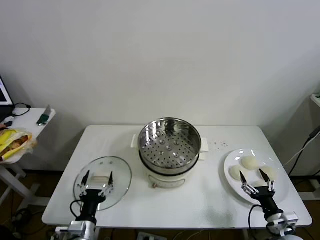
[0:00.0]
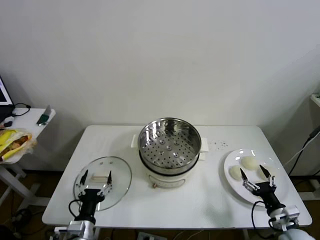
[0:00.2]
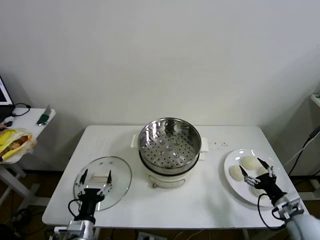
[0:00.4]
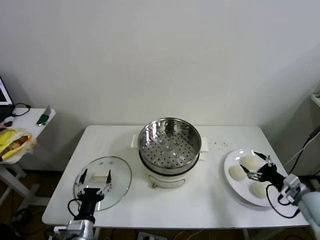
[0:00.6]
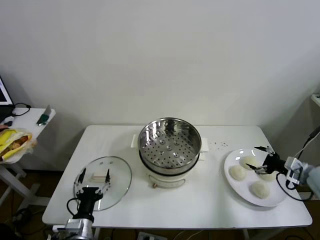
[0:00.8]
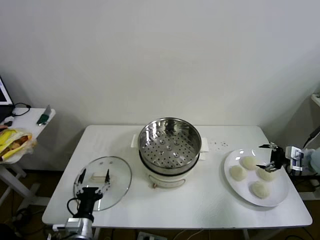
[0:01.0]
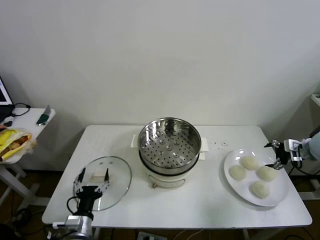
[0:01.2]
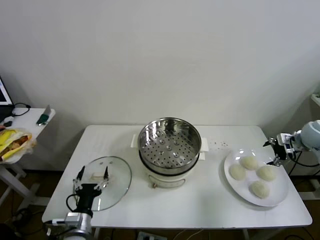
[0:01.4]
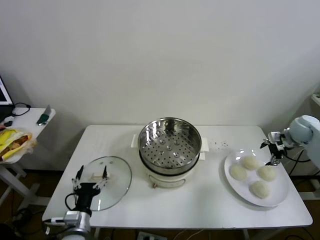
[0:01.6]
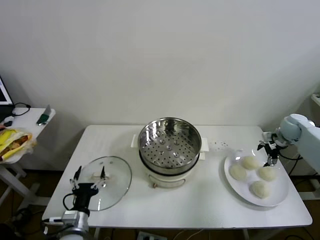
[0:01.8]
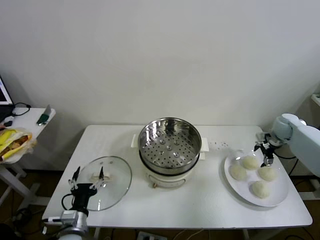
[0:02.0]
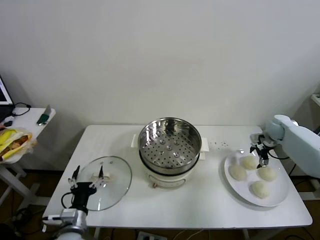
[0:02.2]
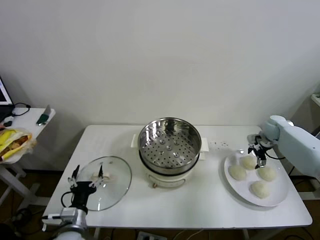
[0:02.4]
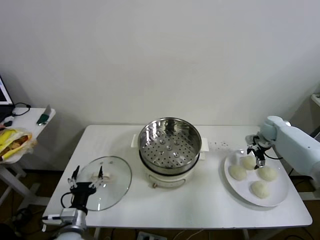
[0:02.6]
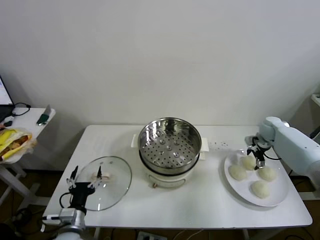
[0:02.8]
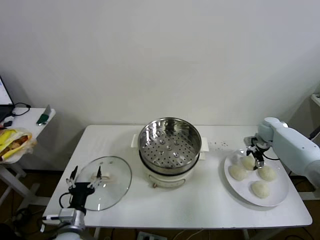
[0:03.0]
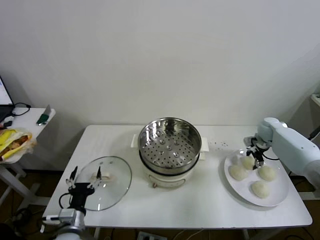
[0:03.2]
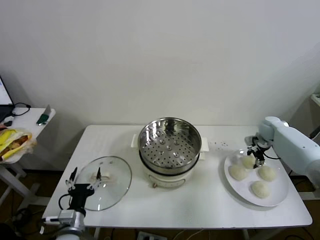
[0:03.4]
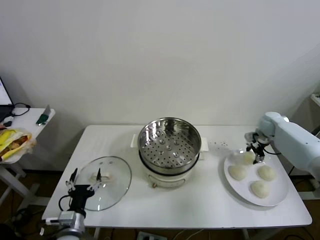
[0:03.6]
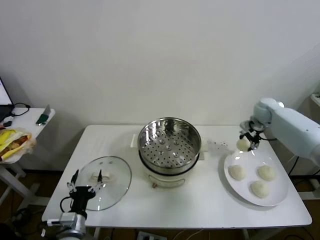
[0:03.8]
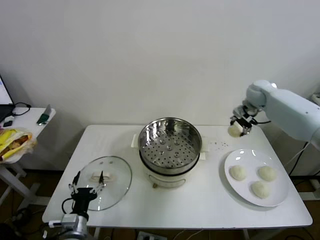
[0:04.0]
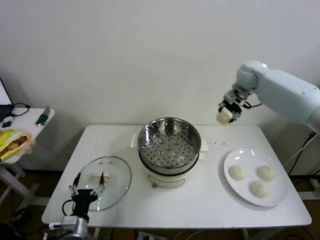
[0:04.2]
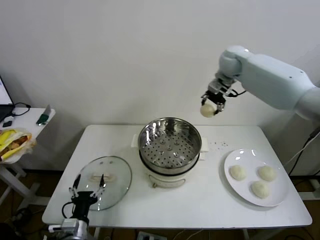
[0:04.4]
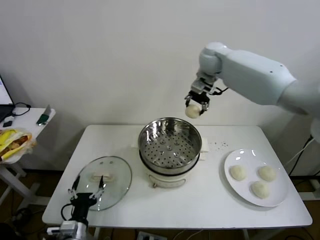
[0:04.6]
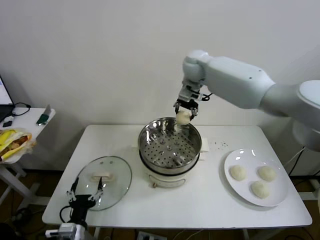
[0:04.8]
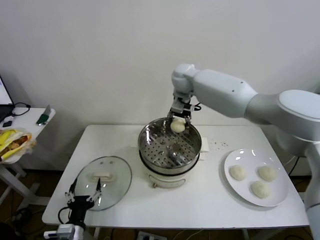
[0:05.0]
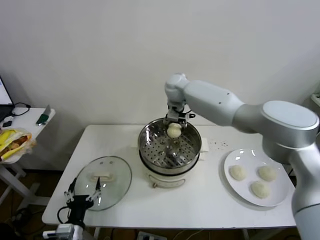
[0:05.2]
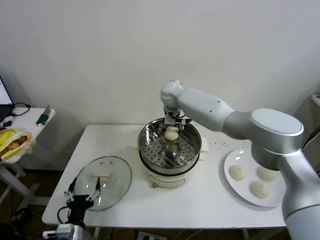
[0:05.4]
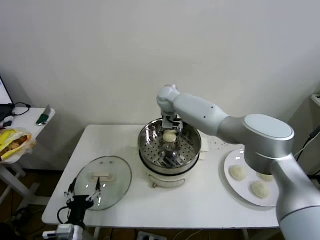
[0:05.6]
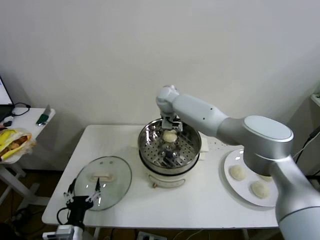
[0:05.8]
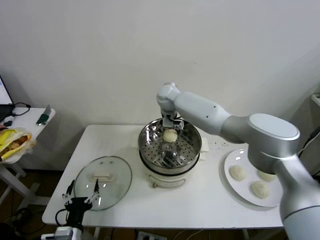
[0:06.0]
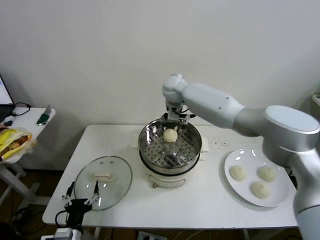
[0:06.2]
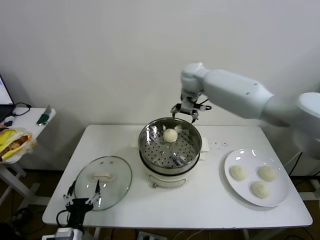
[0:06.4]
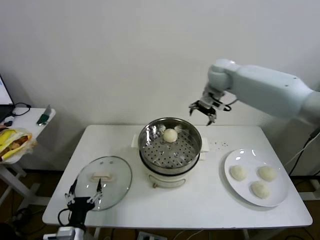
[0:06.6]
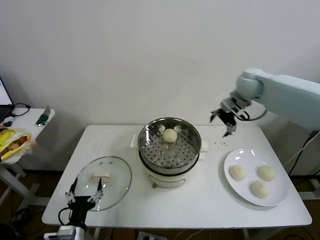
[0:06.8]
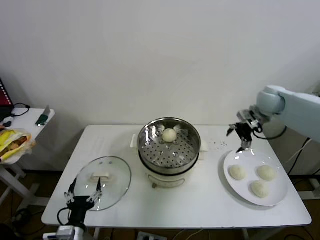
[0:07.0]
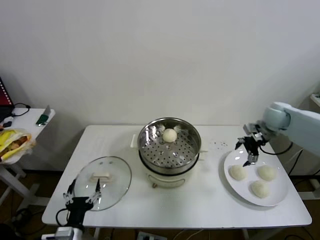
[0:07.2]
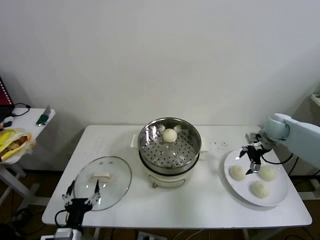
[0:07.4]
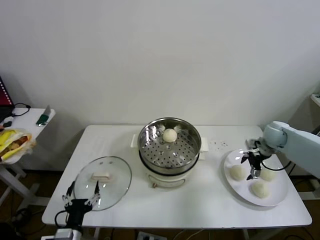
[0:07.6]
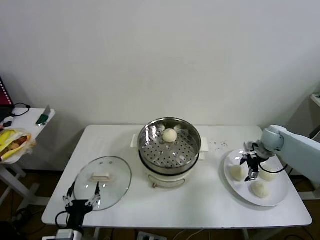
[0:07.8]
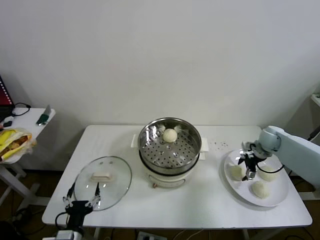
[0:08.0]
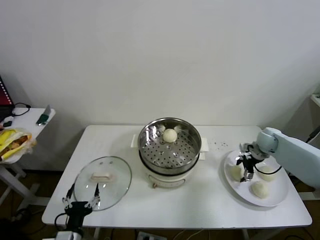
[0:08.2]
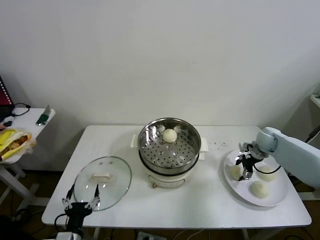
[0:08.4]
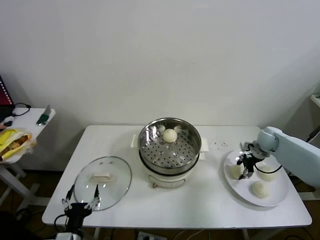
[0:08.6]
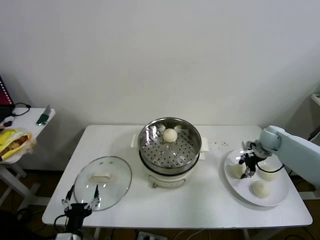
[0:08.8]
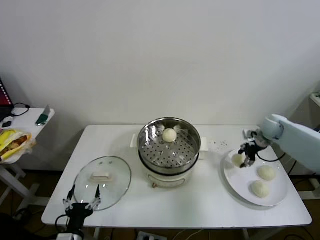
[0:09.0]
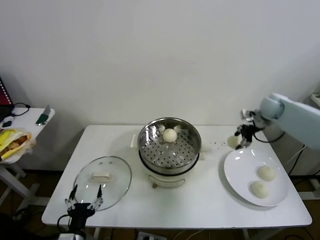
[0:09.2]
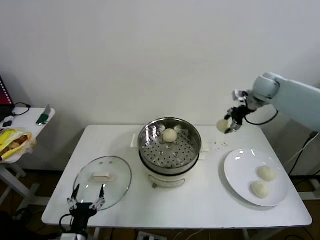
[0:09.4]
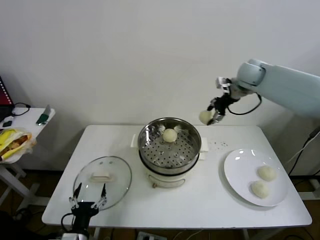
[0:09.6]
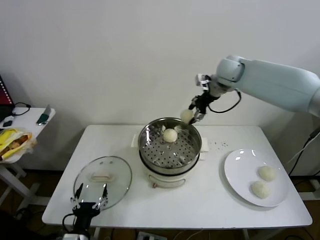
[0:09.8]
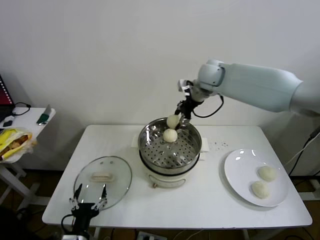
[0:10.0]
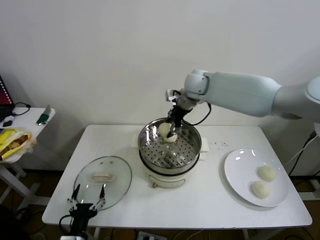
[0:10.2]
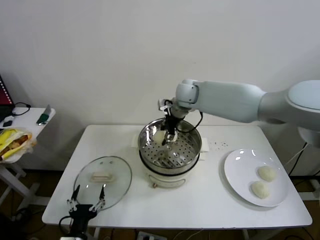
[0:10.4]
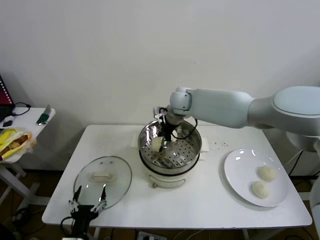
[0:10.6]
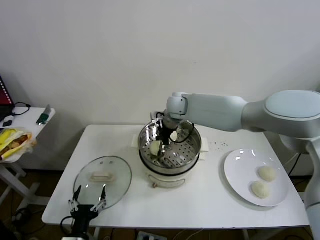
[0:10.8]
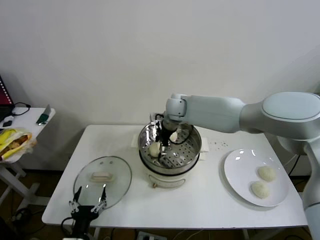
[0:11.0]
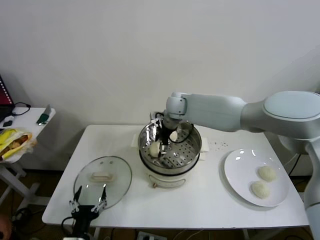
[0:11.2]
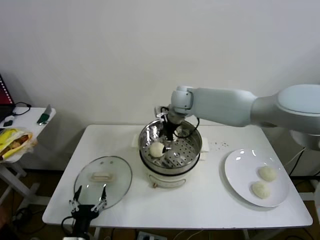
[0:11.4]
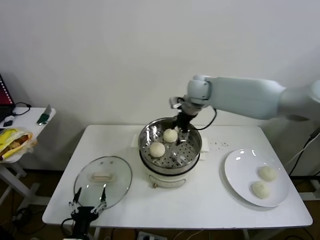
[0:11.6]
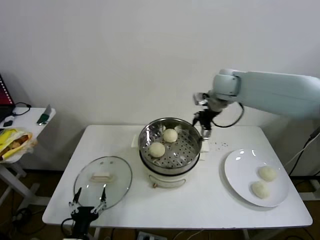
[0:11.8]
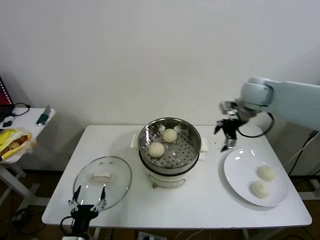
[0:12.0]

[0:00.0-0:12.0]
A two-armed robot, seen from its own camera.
Step, 0:00.0 to 0:03.0: Grasp the baozi in the plate with right gripper.
Step, 0:03.2 to 0:05.8: Place the baozi on the steamer with right gripper.
Step, 0:06.0 to 0:11.0: Place the baozi on the steamer with right gripper.
0:01.6 to 0:03.0: The right gripper goes roughly 10 cm downward, forward and to the left, and closes its fingers.
0:03.0 to 0:04.4: The right gripper goes roughly 35 cm upward and to the left, and closes.
0:04.4 to 0:06.0: The right gripper heads to the left and downward, covering about 25 cm, and opens up.
0:06.0 to 0:07.6: The right gripper heads to the right, covering about 40 cm.
0:07.6 to 0:09.0: The right gripper closes its fingers.
0:09.0 to 0:10.4: The right gripper moves to the left and upward, some 35 cm.
0:10.4 to 0:12.0: The right gripper is displaced to the right by approximately 20 cm, and opens its fingers.

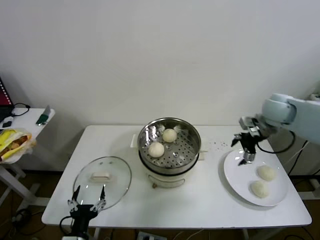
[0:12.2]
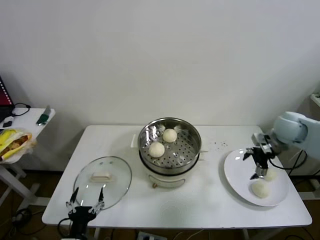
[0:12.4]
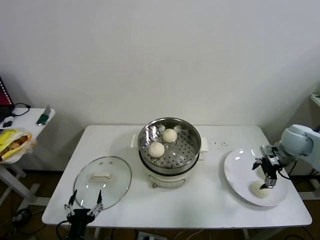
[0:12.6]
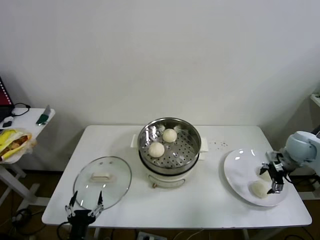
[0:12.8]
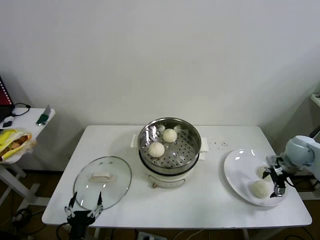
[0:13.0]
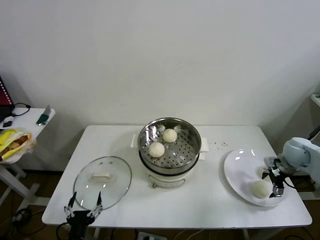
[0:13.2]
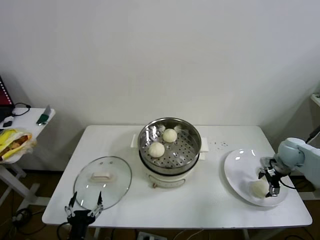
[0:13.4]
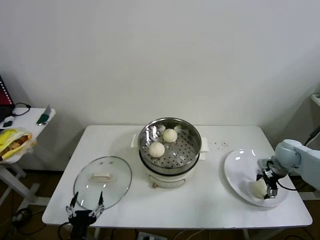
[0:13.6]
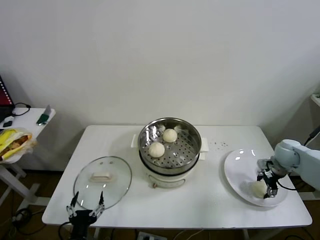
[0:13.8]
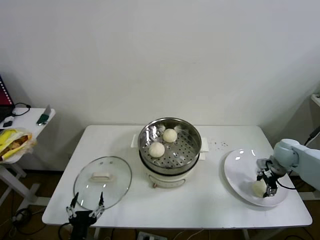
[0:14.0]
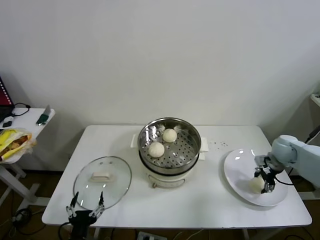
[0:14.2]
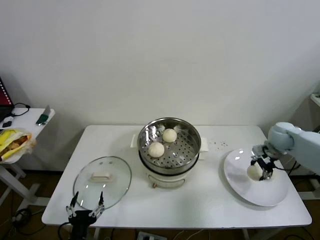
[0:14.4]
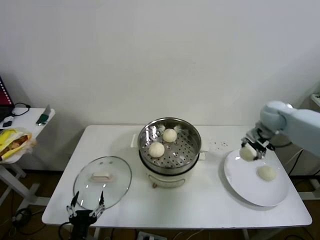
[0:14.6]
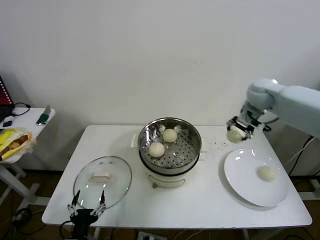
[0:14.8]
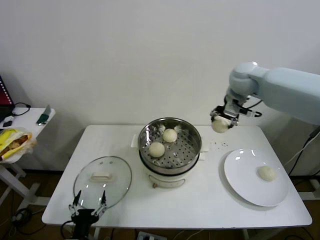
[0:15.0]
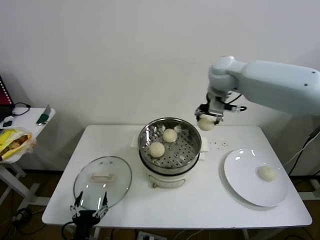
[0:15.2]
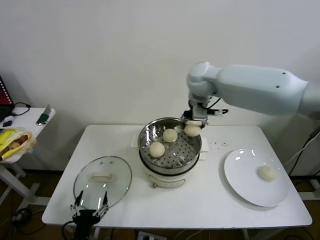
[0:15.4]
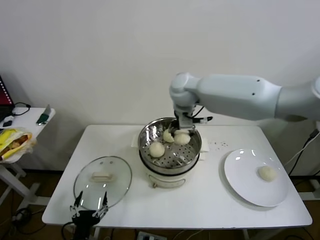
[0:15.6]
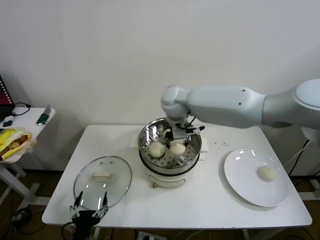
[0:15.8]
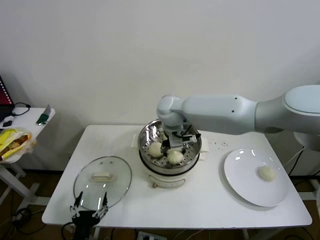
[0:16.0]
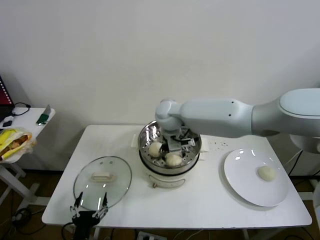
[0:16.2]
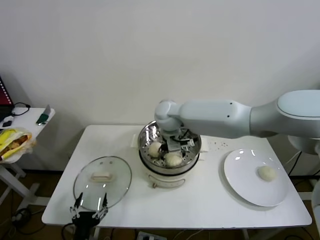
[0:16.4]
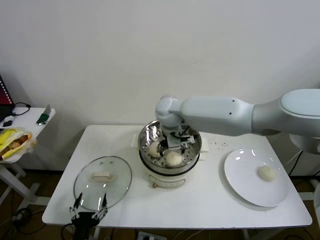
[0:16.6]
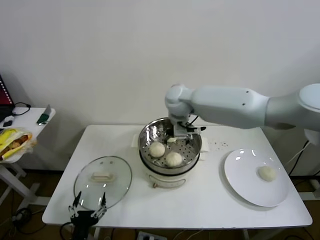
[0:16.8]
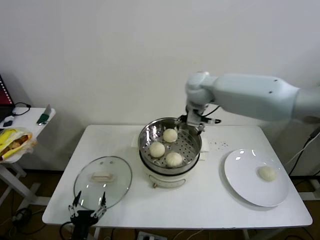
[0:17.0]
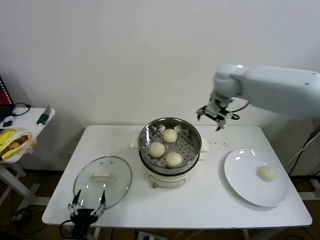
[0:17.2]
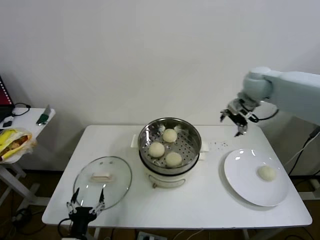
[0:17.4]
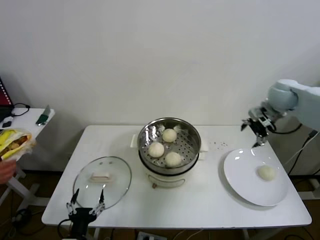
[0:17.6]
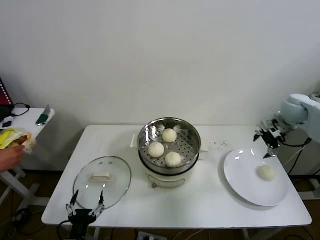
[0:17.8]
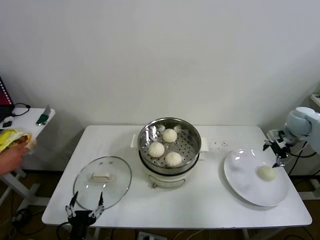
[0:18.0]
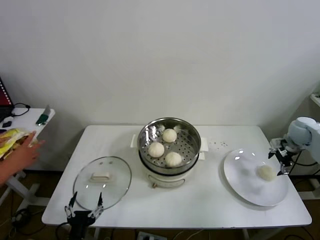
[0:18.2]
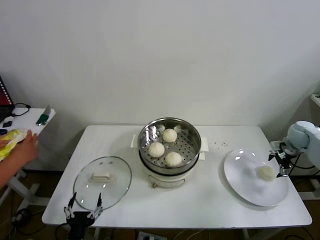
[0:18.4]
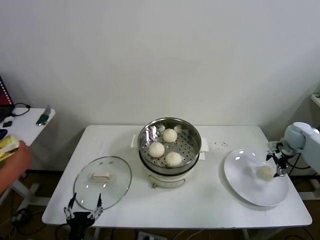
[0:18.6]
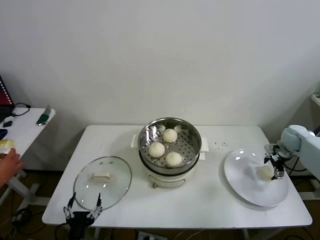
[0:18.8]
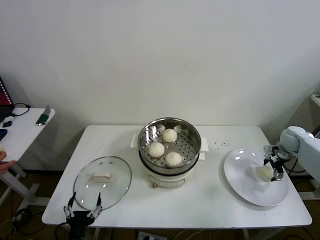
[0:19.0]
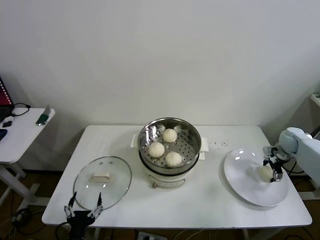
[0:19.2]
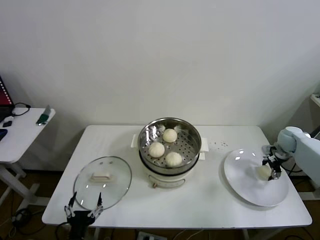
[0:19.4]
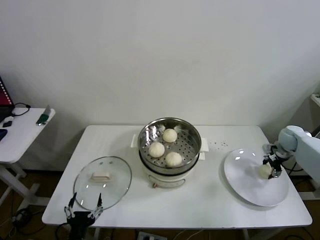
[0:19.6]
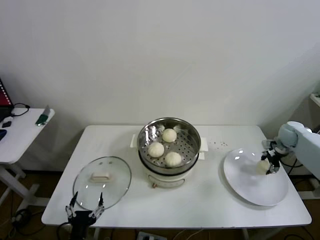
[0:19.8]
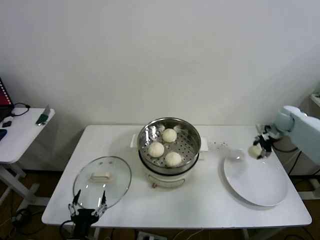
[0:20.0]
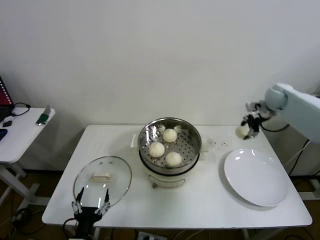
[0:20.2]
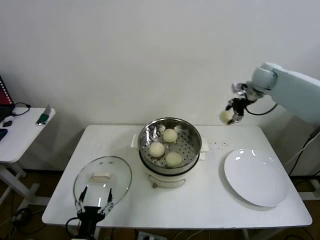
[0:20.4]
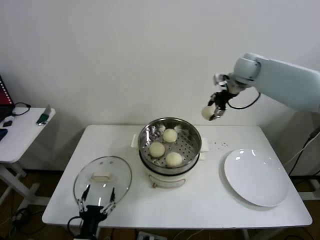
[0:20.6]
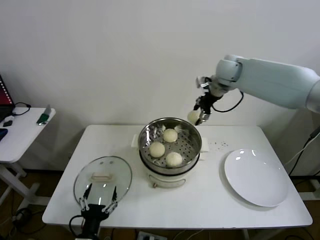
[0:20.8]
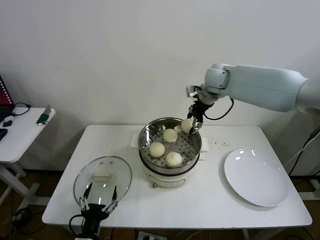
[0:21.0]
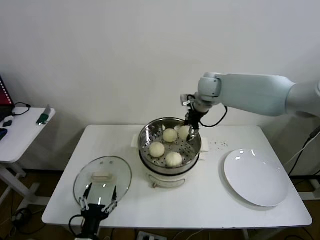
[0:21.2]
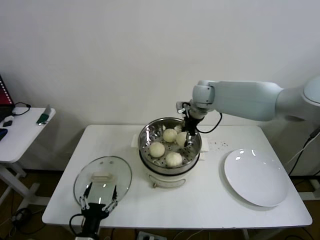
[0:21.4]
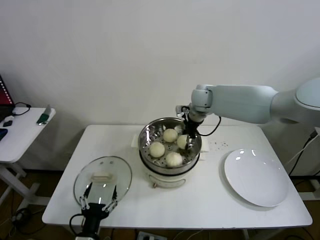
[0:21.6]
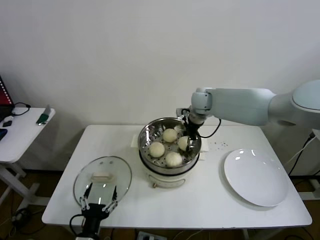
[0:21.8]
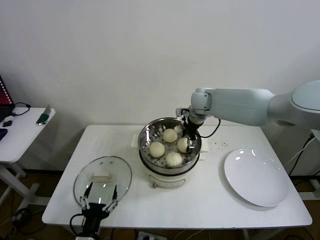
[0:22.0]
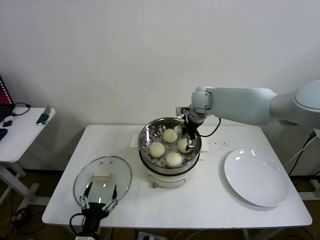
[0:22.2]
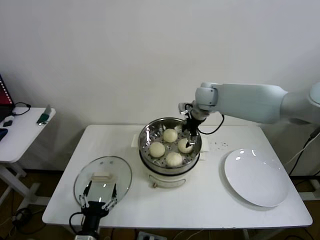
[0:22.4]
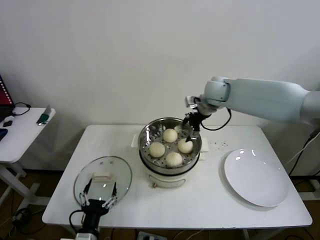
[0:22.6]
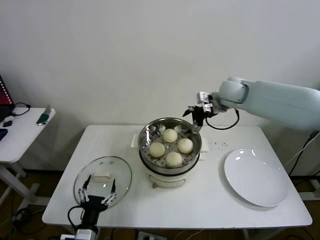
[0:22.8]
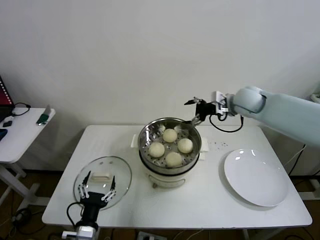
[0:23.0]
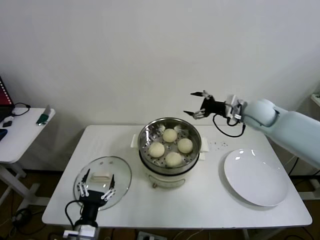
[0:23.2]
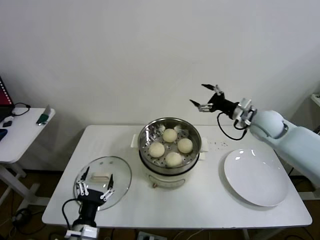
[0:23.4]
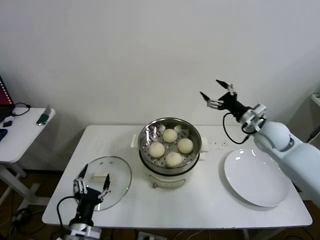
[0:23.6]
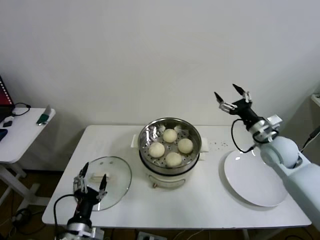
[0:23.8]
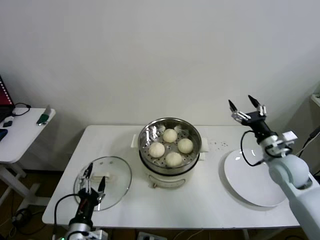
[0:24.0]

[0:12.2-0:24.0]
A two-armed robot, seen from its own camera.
Step, 0:12.2 to 0:13.6: Grasp the baozi in the plate with right gripper.
Step, 0:13.8 to 0:16.4: Place the baozi on the steamer with right gripper.
Step, 0:16.6 to 0:19.2: Grasp the baozi in the plate with right gripper.
Step, 0:19.4 to 0:22.0: Place the baozi on the steamer with right gripper.
0:12.2 to 0:13.6: The right gripper goes approximately 20 cm downward and to the right.
0:13.6 to 0:15.2: The right gripper moves to the left and upward, some 40 cm, and closes.
0:15.2 to 0:16.6: The right gripper travels to the left and downward by roughly 20 cm, and opens up.
0:16.6 to 0:18.2: The right gripper travels to the right by some 50 cm.
0:18.2 to 0:19.6: The right gripper travels downward by some 5 cm, and closes its fingers.
0:19.6 to 0:21.0: The right gripper shifts roughly 40 cm to the left and upward.
0:21.0 to 0:22.6: The right gripper opens.
0:22.6 to 0:24.0: The right gripper moves backward, to the right and downward, some 30 cm.
